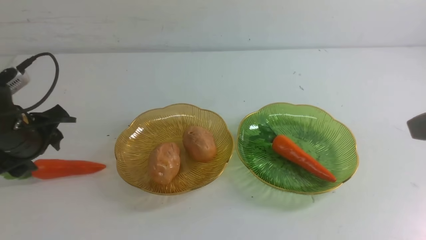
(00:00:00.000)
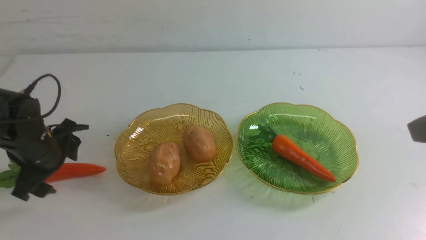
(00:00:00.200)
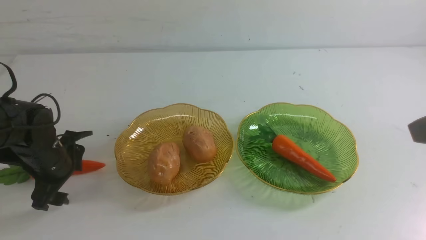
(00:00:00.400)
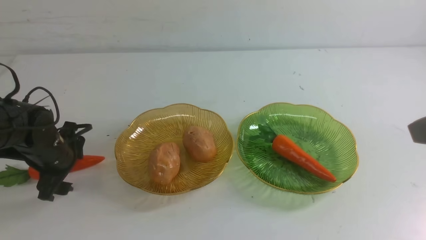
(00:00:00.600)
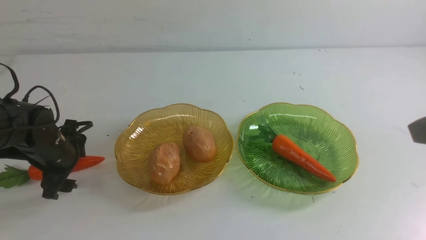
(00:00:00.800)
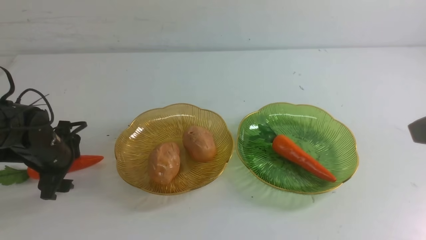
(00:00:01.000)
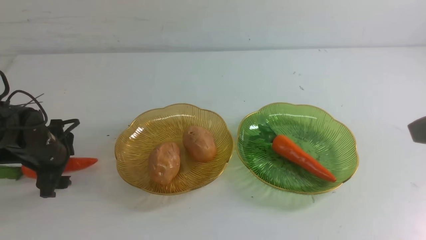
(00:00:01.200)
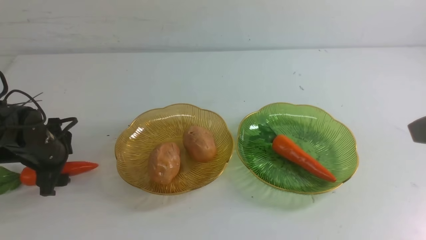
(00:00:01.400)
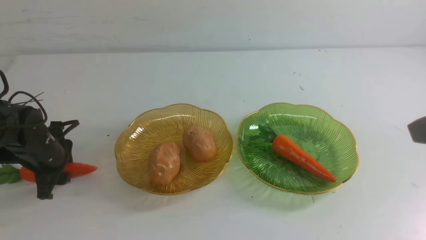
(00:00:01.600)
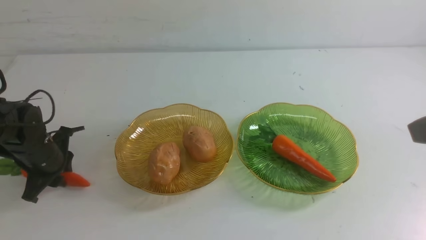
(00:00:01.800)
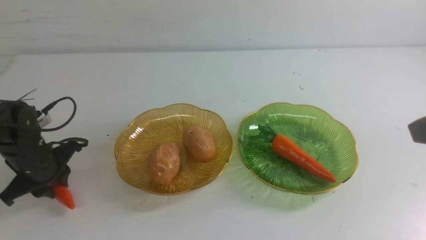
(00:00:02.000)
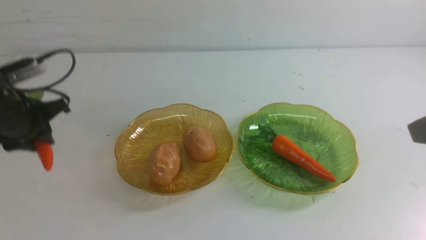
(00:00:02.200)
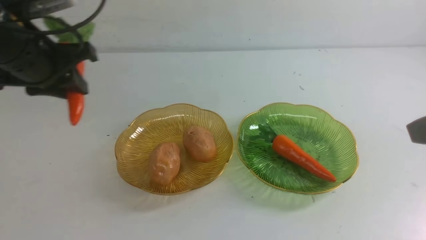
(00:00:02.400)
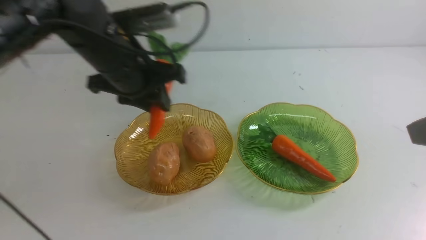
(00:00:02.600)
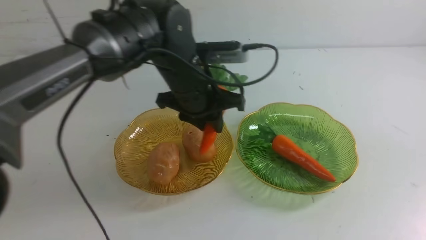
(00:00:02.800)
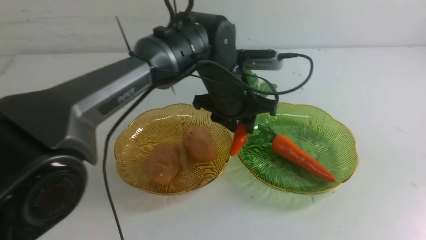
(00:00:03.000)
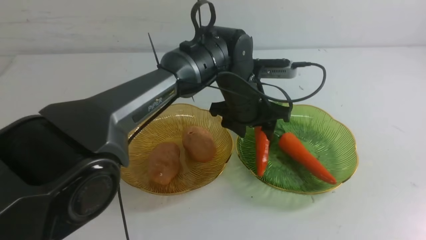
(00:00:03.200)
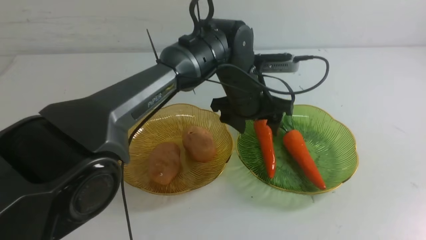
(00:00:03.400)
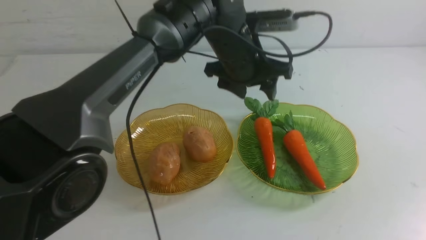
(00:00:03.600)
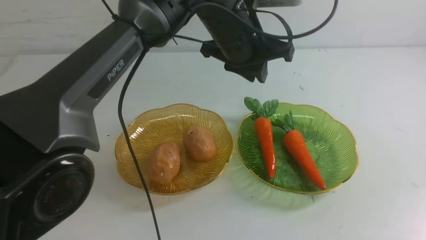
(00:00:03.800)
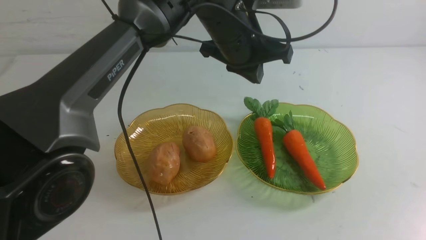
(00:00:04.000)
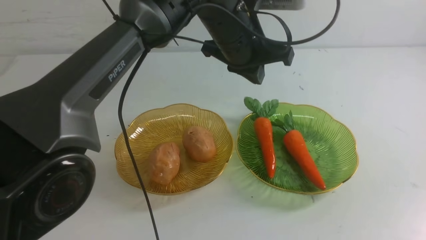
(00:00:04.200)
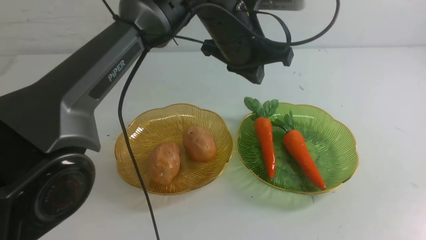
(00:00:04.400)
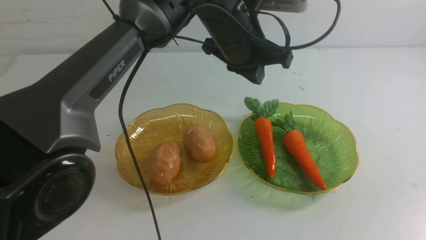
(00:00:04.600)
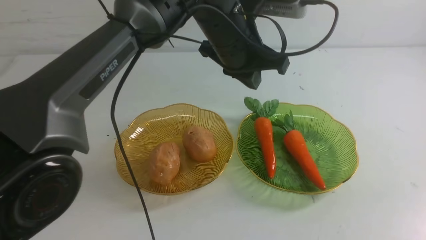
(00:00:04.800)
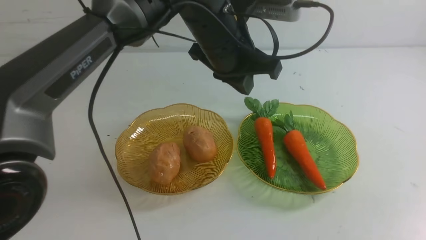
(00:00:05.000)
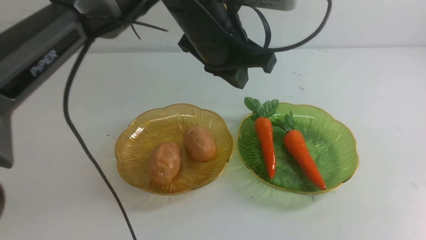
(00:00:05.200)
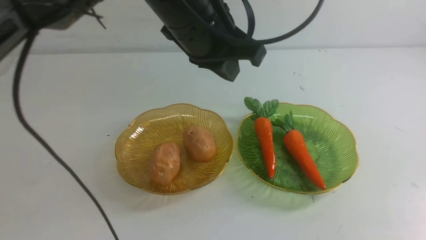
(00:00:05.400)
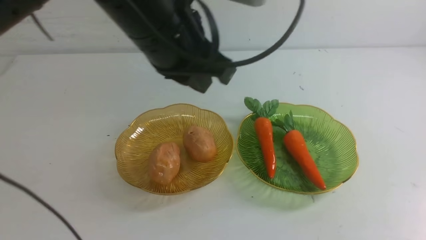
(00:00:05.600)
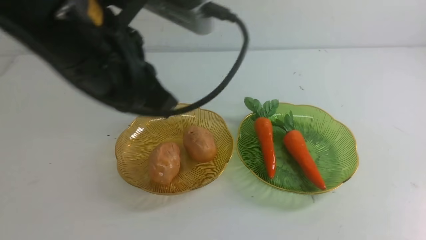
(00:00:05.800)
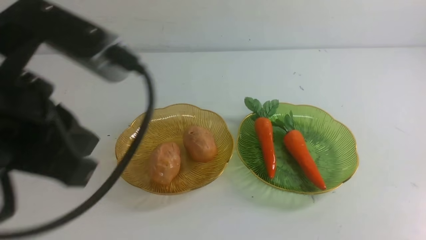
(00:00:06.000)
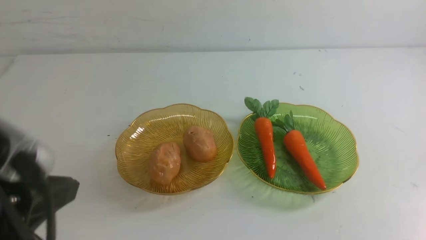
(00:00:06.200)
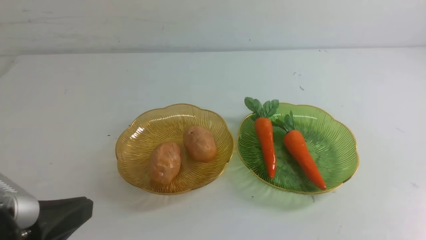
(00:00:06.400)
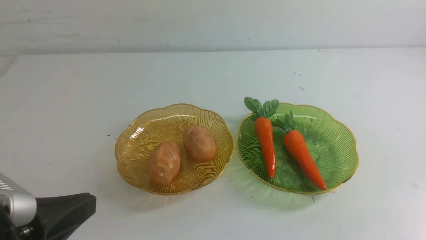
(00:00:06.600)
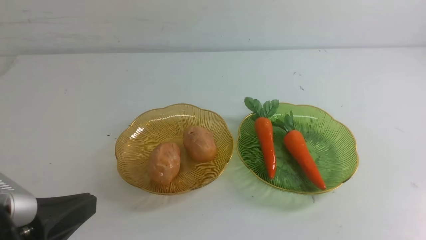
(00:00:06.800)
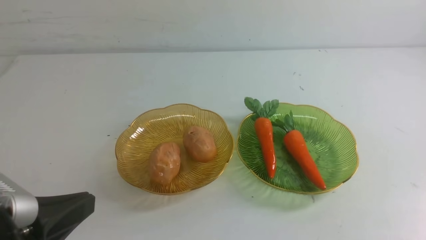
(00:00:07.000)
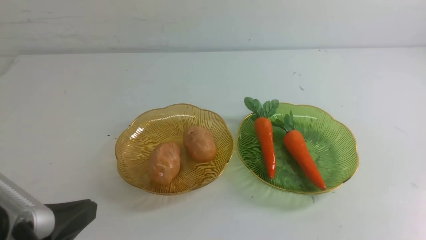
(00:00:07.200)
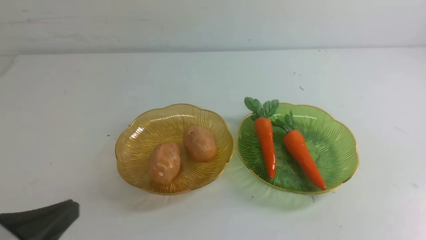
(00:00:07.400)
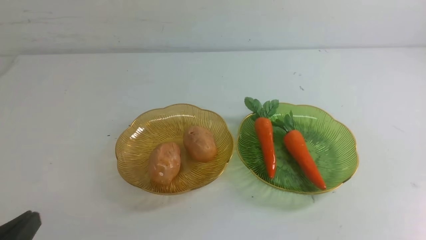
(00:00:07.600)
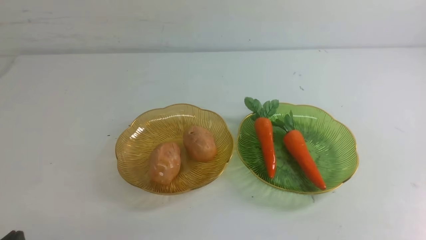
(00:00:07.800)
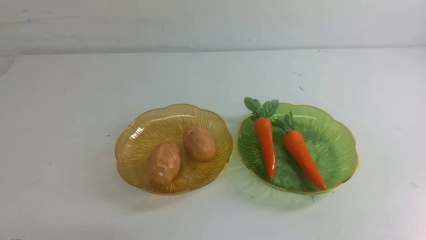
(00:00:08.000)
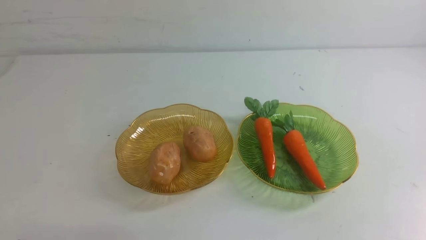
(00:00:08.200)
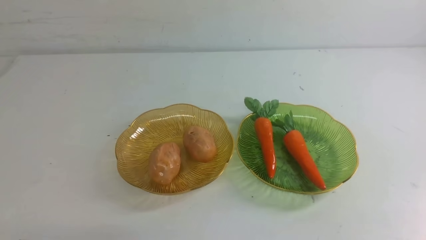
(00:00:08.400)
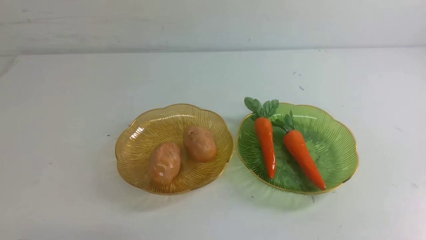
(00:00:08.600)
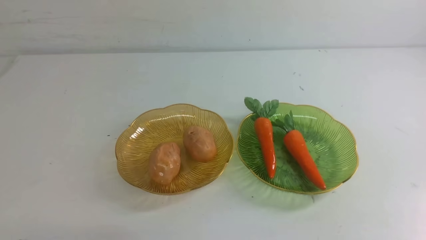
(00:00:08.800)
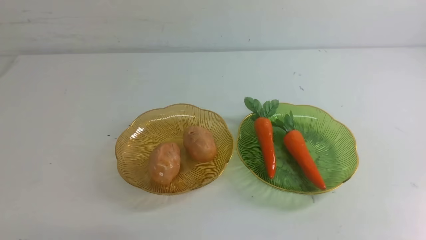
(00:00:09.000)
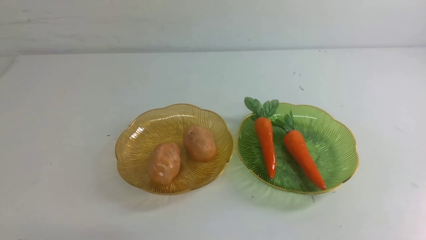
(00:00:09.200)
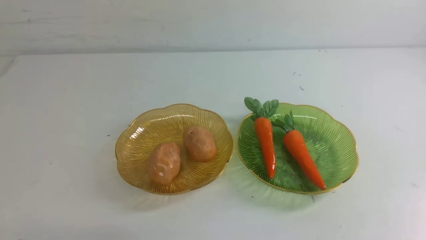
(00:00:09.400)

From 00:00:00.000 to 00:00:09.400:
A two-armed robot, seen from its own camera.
Step, from 00:00:00.000 to 00:00:03.600: use the left arm to grab a carrot and put it into the right plate.
From 00:00:00.000 to 00:00:01.600: The left gripper is displaced downward by about 5 cm.
From 00:00:01.600 to 00:00:03.200: The right gripper is displaced backward by roughly 10 cm. The left gripper heads to the right, covering about 35 cm.
From 00:00:03.200 to 00:00:04.800: The left gripper is displaced upward by about 10 cm, and closes up. The right gripper heads downward, covering roughly 20 cm.
From 00:00:04.800 to 00:00:06.200: The right gripper moves downward, approximately 5 cm. Meanwhile the left gripper travels backward and to the left by some 35 cm.
From 00:00:06.200 to 00:00:07.800: The left gripper goes approximately 15 cm downward and to the left.
